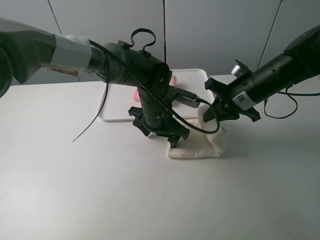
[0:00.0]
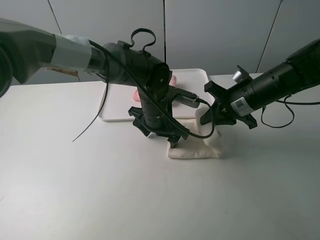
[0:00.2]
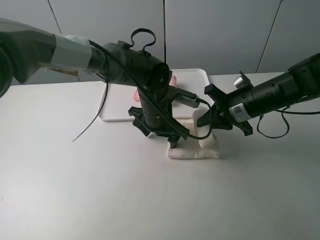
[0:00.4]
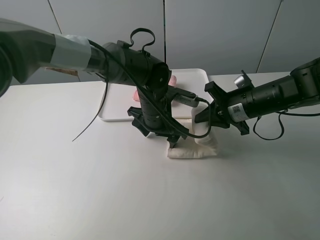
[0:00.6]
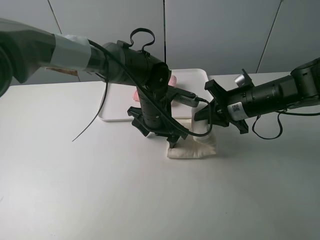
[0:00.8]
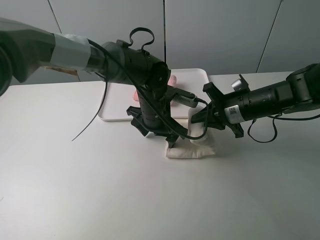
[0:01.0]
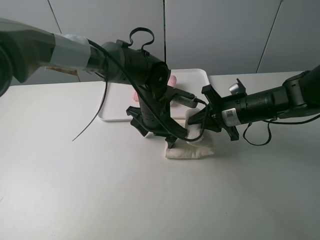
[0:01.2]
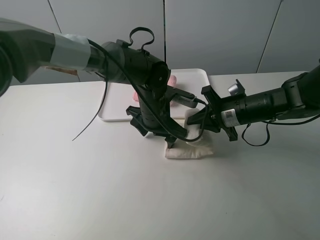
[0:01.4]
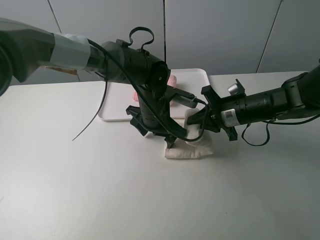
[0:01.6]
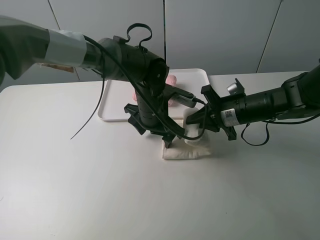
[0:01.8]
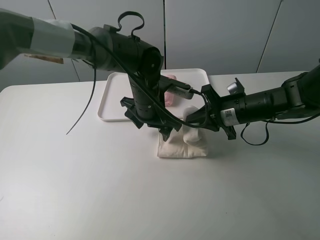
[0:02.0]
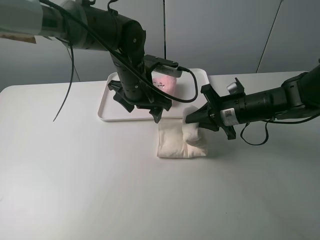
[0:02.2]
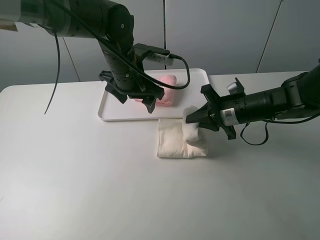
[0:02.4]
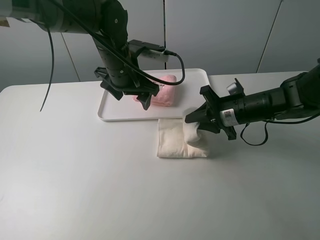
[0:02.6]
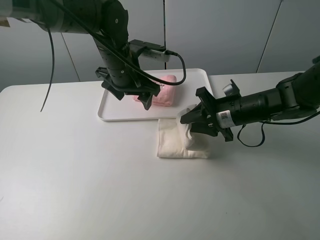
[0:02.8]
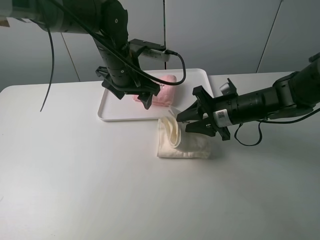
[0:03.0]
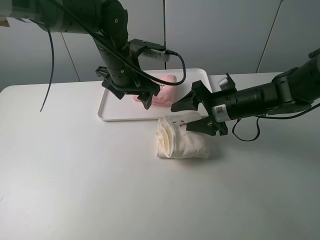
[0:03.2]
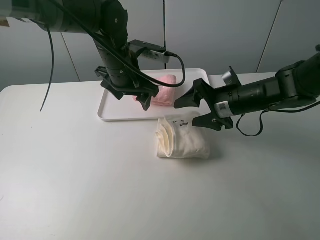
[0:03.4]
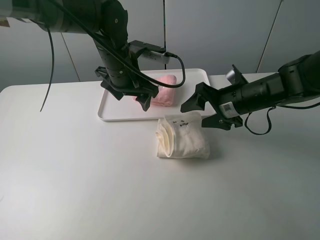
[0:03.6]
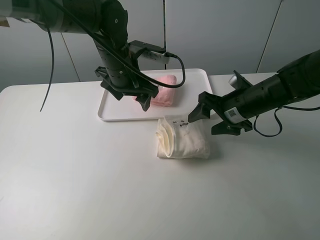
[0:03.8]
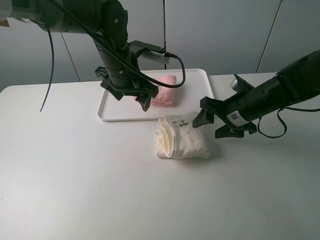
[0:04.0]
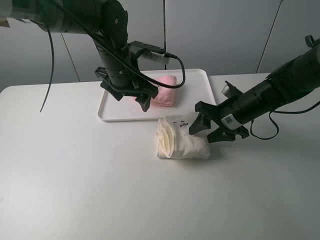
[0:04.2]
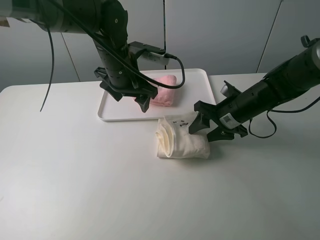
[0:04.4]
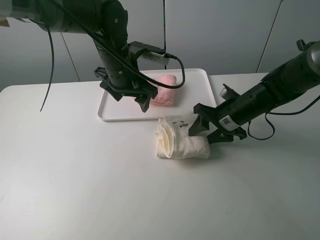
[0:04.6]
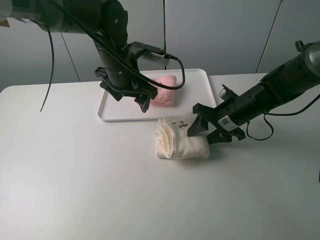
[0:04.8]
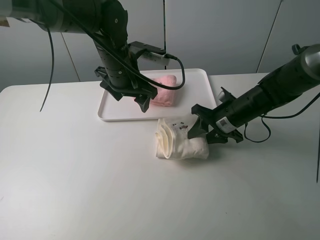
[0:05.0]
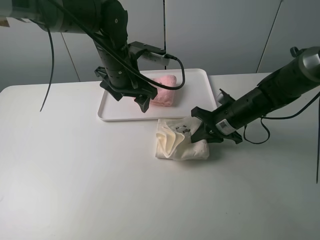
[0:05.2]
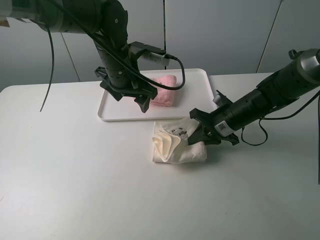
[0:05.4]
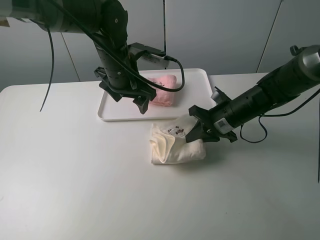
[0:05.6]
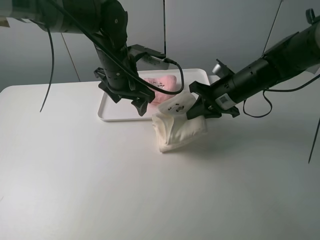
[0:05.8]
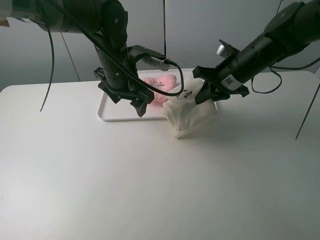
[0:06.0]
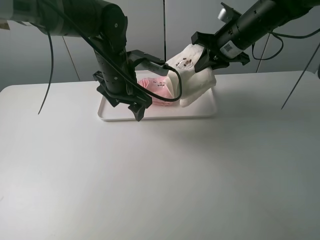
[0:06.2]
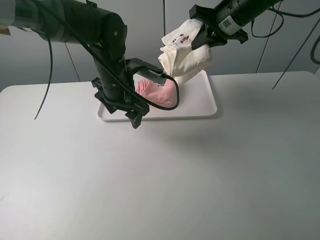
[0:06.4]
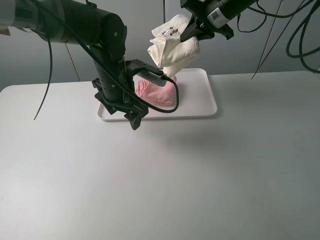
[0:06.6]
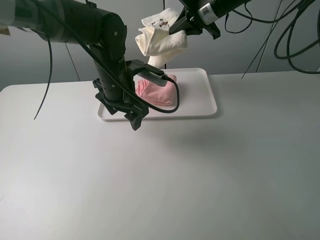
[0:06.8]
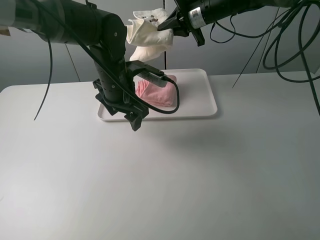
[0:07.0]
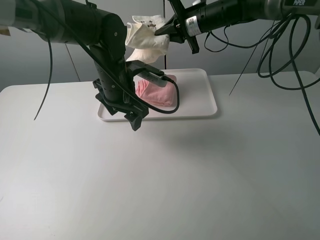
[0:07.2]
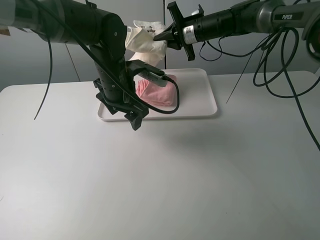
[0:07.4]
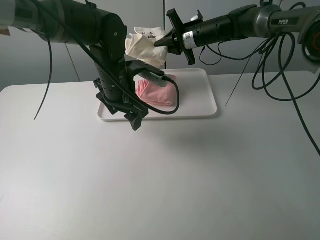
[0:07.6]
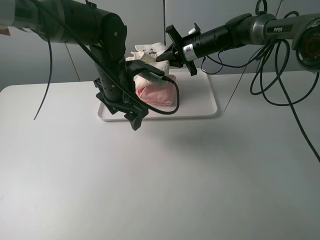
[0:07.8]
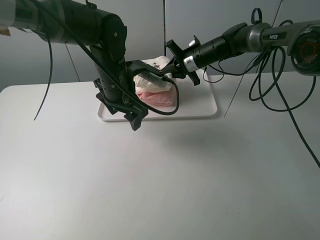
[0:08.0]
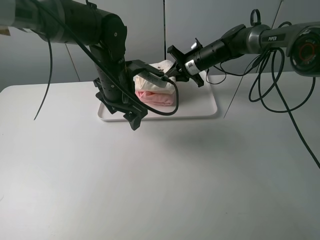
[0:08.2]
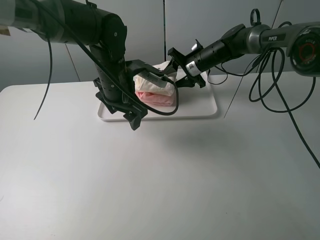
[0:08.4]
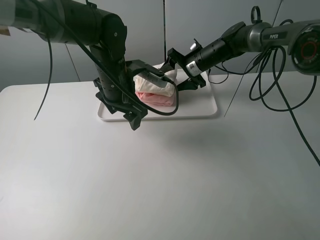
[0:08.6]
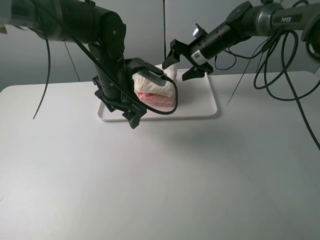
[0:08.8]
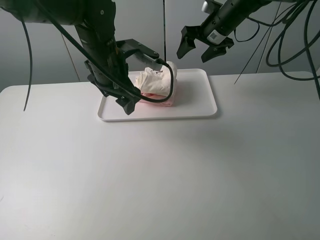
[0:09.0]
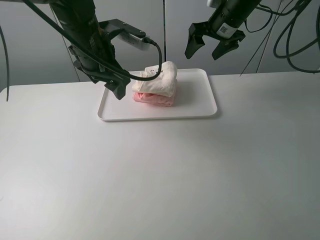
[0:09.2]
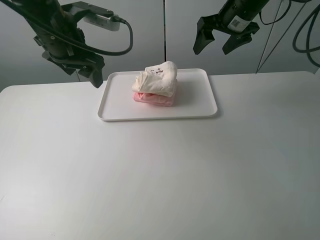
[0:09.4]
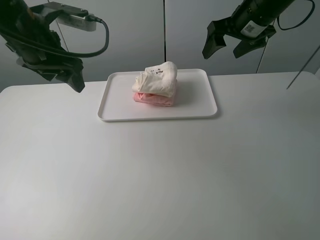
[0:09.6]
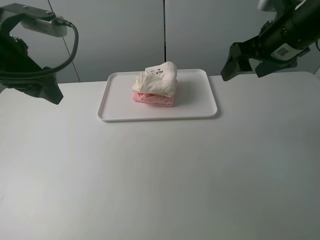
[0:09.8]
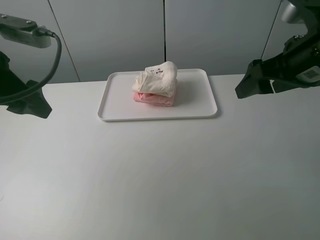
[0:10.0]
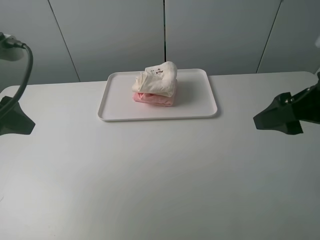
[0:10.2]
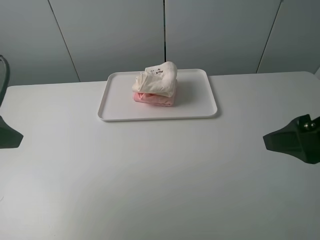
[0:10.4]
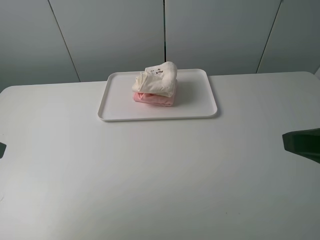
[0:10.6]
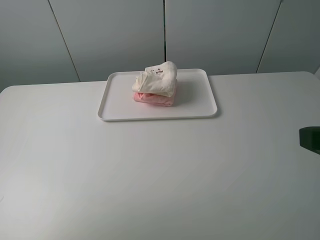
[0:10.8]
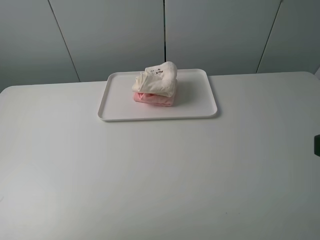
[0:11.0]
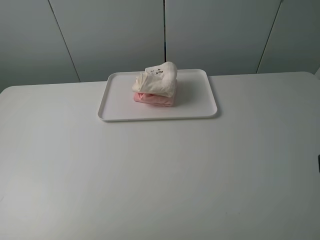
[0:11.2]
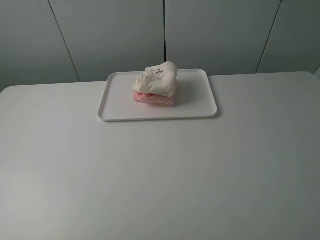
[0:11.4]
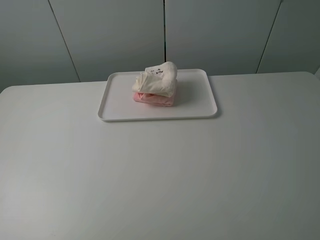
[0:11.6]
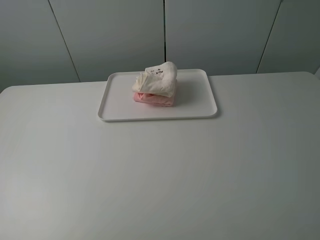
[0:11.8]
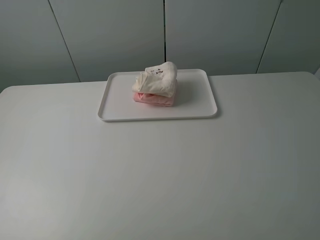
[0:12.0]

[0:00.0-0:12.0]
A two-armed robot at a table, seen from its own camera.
Task of the whole recording: fold one of the towels by two grippers and place it on the tray,then fold another towel by two grippers and place it on the folded towel.
Step, 0:00.0 to 0:03.2: Fold the white towel from right to left with right gripper.
Step, 0:03.4 to 0:05.4: Grasp the white towel with the right gripper.
0:00.0 to 0:01.6: The right gripper changes place by some 5 cm.
0:01.6 to 0:03.0: The right gripper opens. The left gripper goes approximately 10 cm upward and to the left.
0:04.4 to 0:06.0: The right gripper moves upward and forward, about 10 cm, and closes.
0:06.0 to 0:07.6: The right gripper goes approximately 15 cm forward and to the left.
0:07.6 to 0:09.0: The grippers both shift upward by roughly 5 cm. The right gripper opens.
0:09.0 to 0:10.4: The left gripper moves backward and to the left, about 25 cm. The right gripper travels backward by roughly 35 cm.
0:10.4 to 0:12.0: The two grippers go about 10 cm backward.

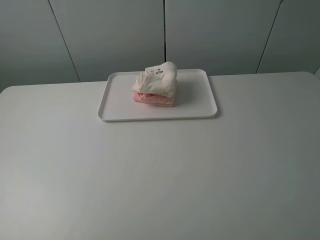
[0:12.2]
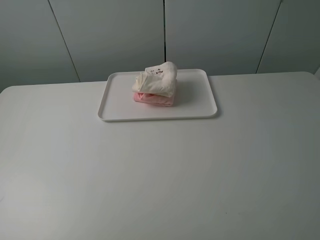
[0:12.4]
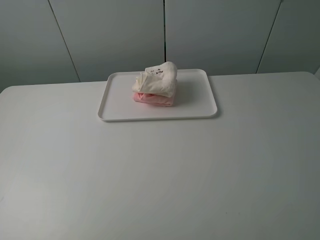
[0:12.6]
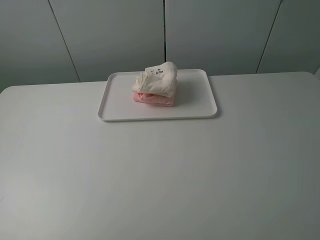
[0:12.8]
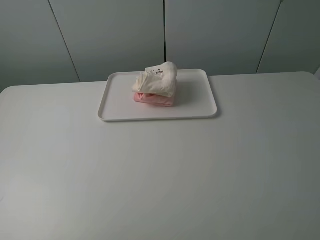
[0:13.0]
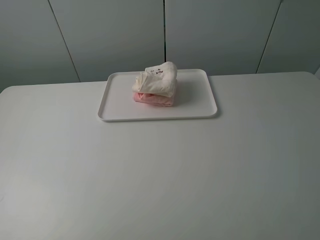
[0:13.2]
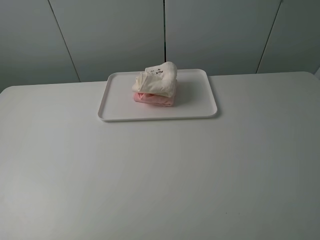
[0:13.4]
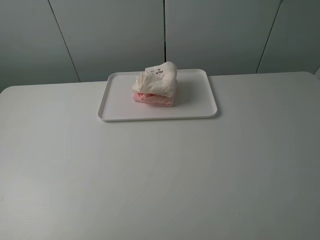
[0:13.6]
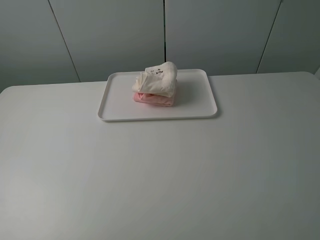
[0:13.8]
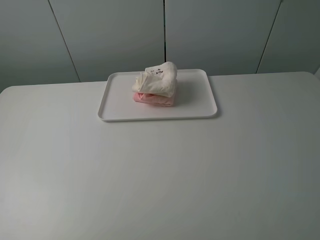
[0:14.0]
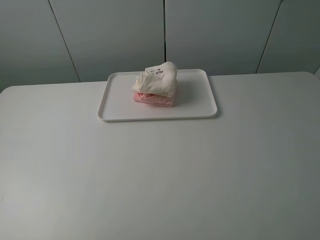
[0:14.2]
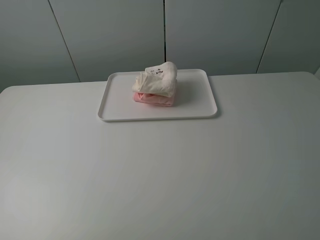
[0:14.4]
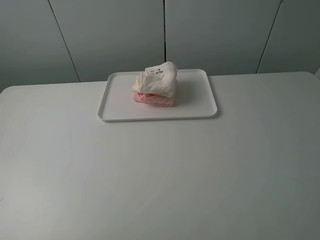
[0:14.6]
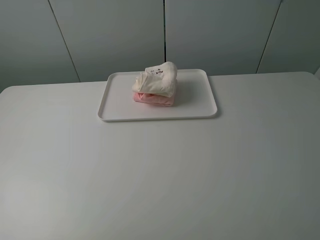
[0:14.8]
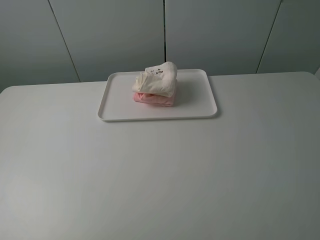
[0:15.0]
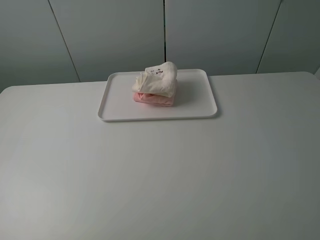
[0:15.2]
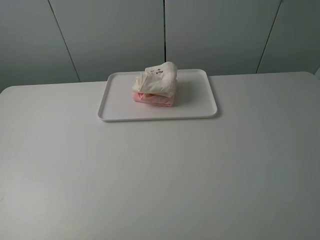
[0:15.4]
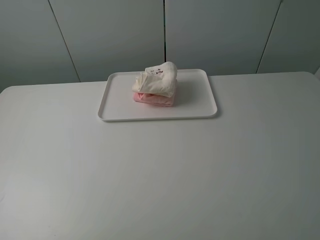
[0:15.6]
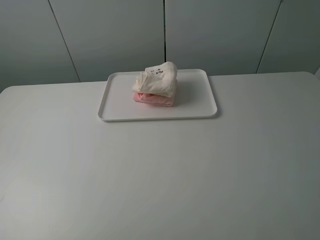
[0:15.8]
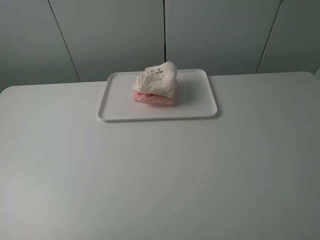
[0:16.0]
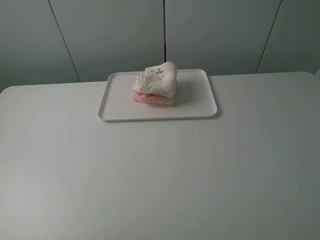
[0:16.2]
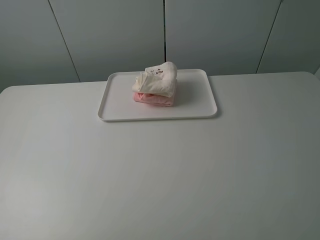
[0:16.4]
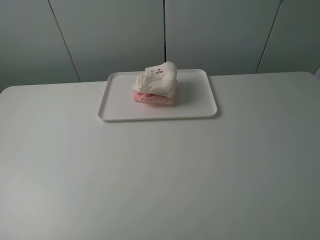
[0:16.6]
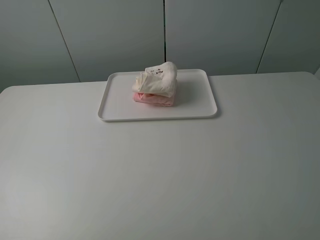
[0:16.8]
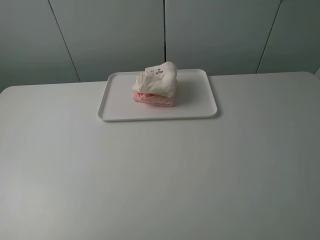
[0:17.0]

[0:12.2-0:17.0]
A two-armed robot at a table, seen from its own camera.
Task of the whole recording: fold one of the towels by two grippers and place it on the tray,then fold another towel by two grippers and place it on the folded towel.
0:13.8 to 0:17.0: Both grippers stay put.

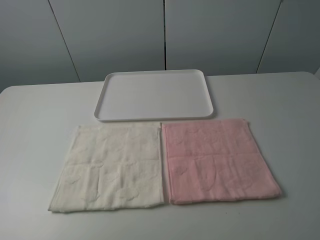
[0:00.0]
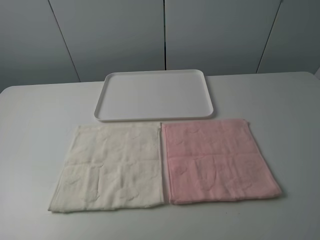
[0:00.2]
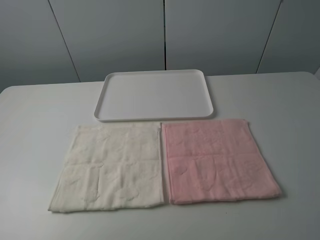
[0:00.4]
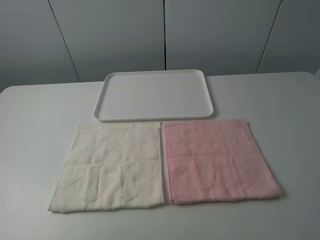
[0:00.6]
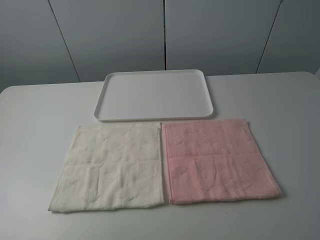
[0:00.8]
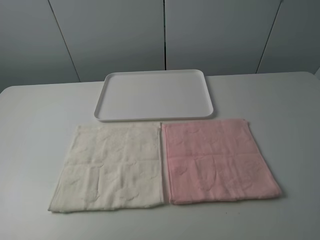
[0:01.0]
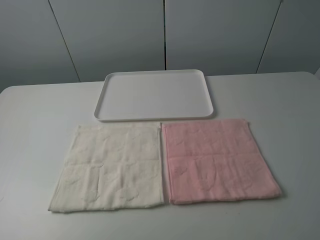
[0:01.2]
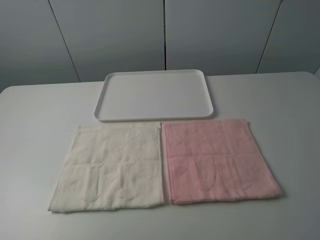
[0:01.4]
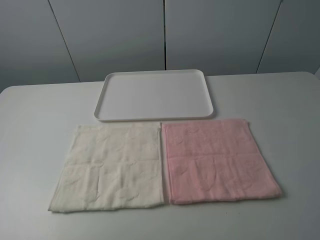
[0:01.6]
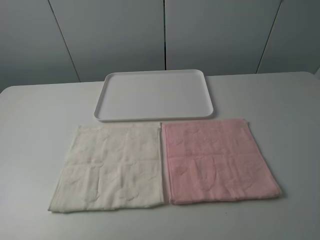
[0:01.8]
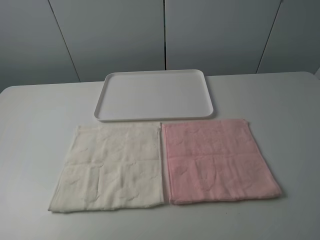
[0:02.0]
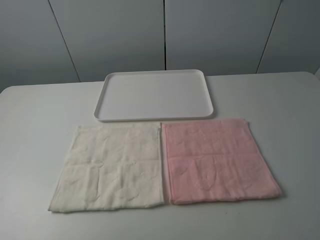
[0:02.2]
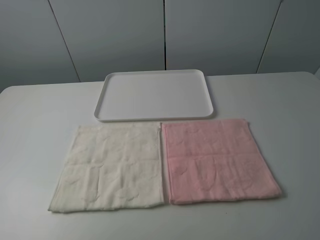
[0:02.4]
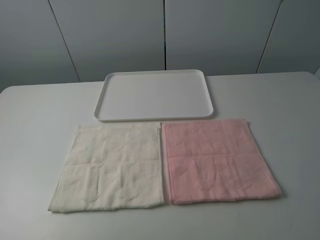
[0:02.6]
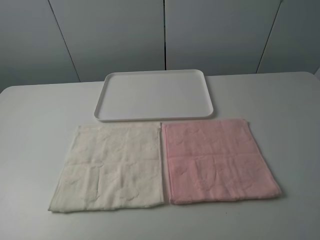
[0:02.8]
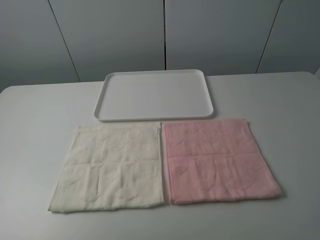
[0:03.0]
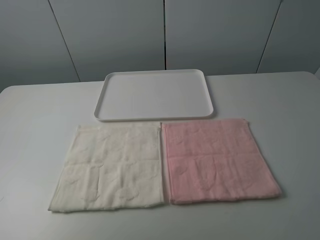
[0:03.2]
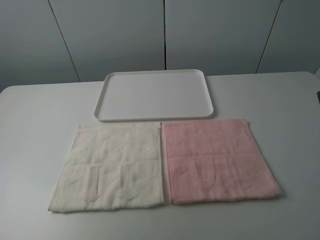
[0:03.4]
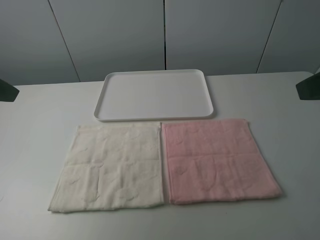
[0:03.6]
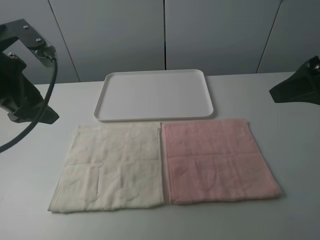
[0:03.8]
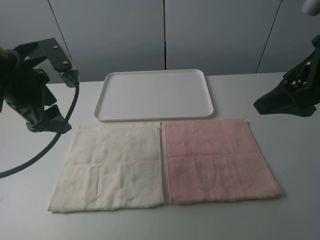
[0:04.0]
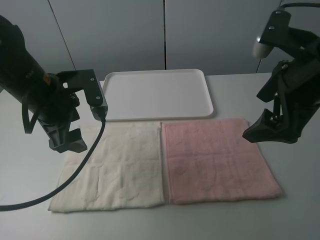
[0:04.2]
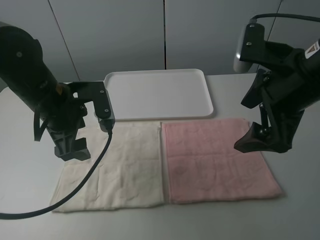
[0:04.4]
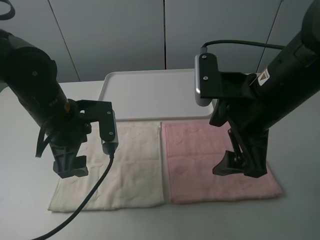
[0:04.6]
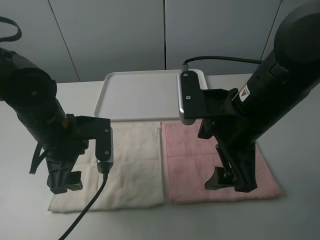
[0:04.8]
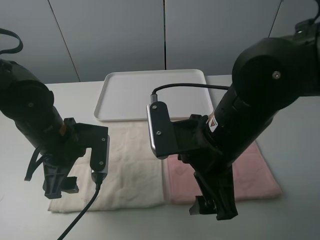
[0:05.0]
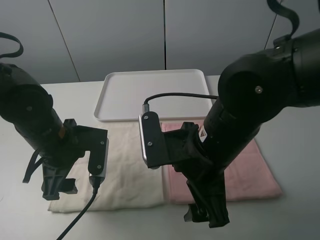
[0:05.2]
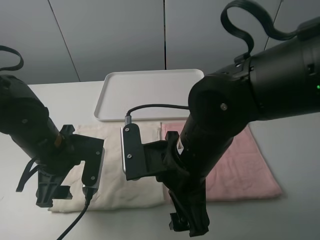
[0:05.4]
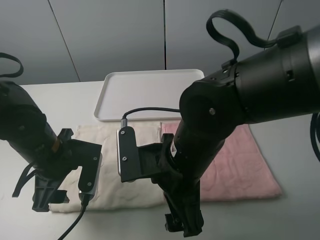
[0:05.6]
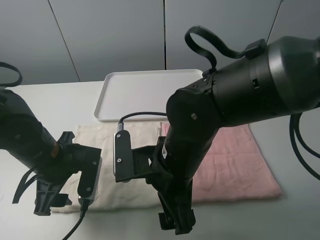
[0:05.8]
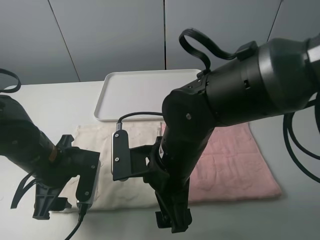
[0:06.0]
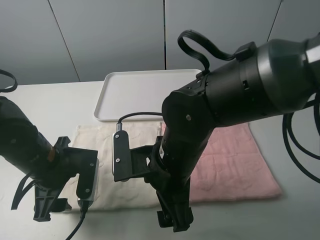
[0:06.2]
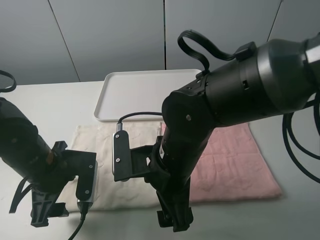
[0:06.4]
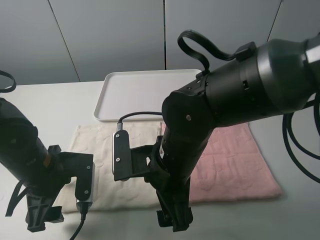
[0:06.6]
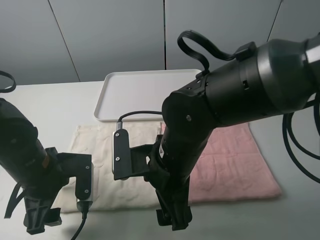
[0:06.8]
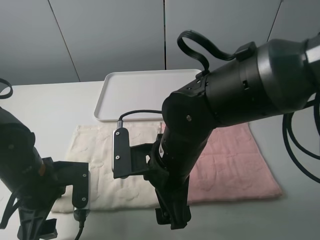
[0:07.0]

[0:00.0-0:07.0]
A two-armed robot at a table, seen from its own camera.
Task of the whole recording: fold one of the towels by two grippers and place it on the tray,then fold another towel by two grippers and place it on the folded towel.
0:00.0 to 0:01.4: The two grippers keep their place.
0:02.8 to 0:04.2: The left gripper goes roughly 30 cm forward and to the right. The right gripper moves forward, some 20 cm.
0:04.2 to 0:05.6: The right gripper shifts about 20 cm to the left and downward. Meanwhile the left gripper shifts some 10 cm downward and backward.
